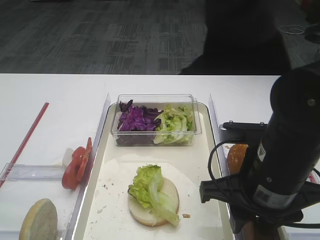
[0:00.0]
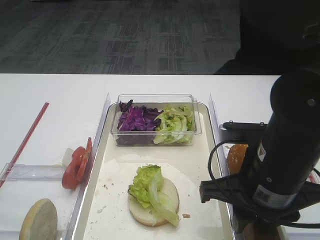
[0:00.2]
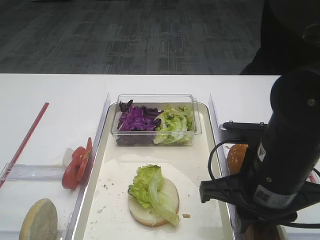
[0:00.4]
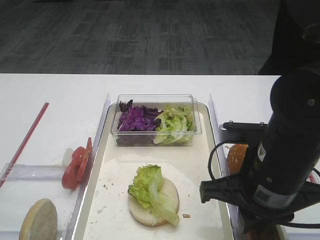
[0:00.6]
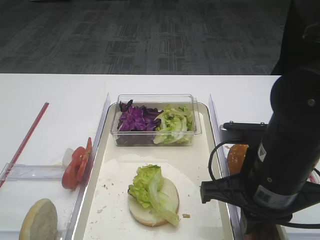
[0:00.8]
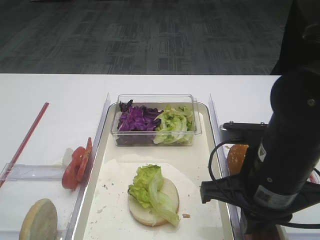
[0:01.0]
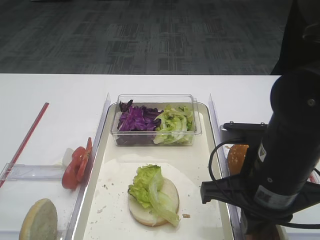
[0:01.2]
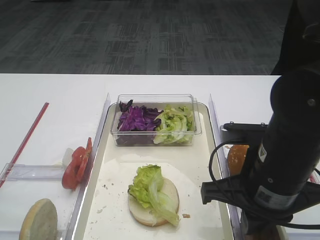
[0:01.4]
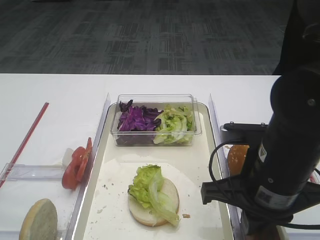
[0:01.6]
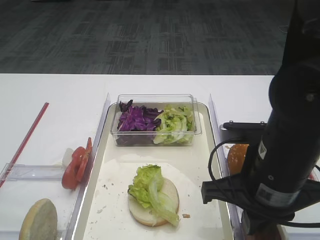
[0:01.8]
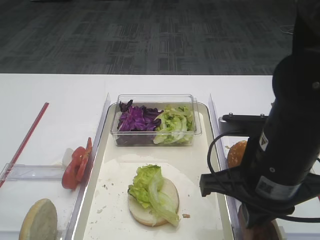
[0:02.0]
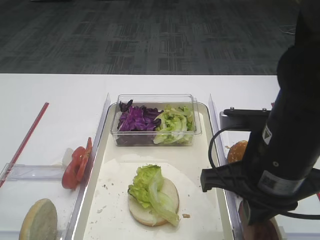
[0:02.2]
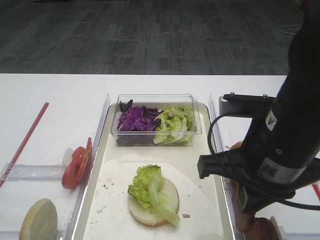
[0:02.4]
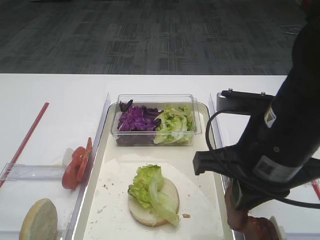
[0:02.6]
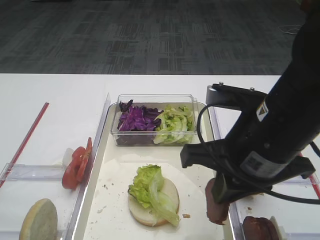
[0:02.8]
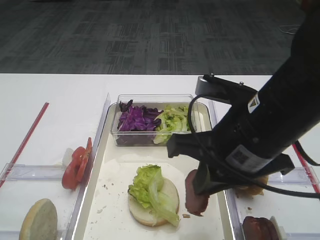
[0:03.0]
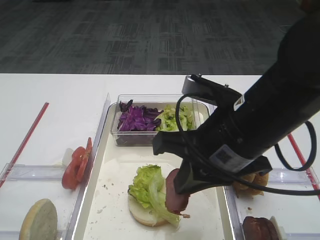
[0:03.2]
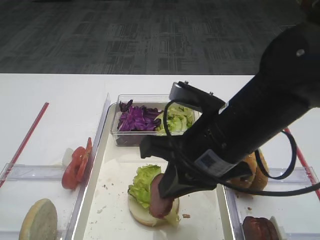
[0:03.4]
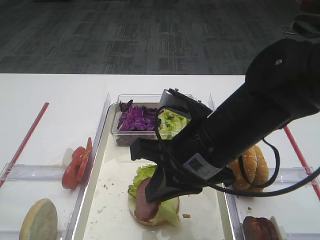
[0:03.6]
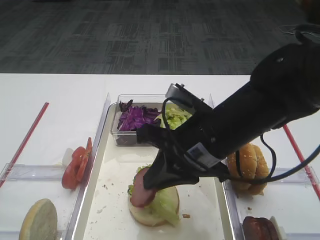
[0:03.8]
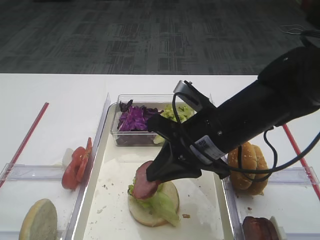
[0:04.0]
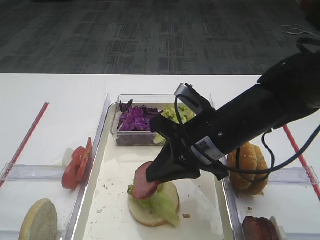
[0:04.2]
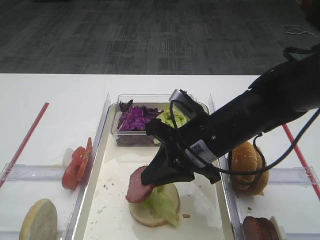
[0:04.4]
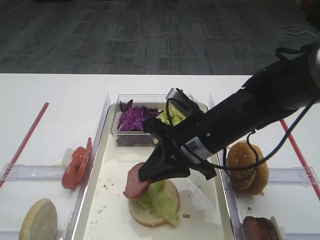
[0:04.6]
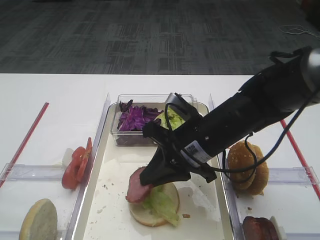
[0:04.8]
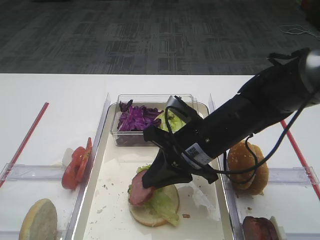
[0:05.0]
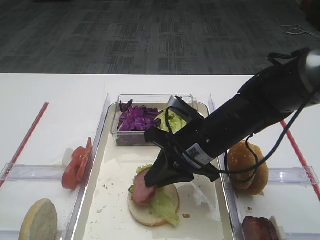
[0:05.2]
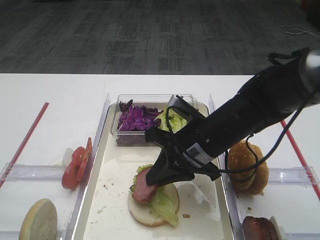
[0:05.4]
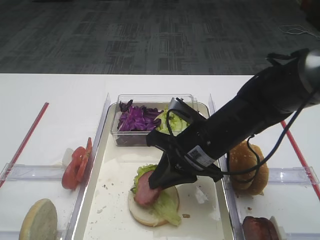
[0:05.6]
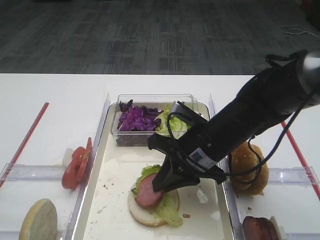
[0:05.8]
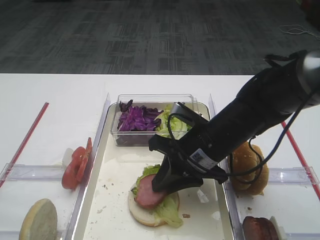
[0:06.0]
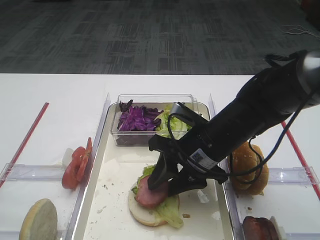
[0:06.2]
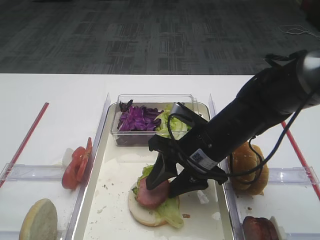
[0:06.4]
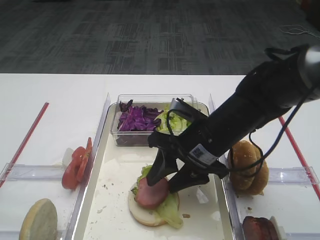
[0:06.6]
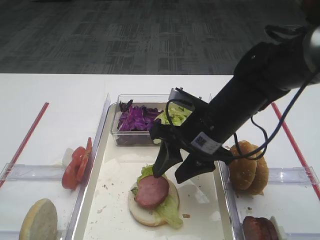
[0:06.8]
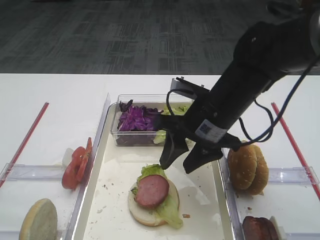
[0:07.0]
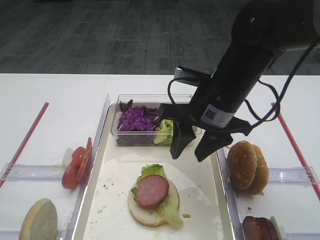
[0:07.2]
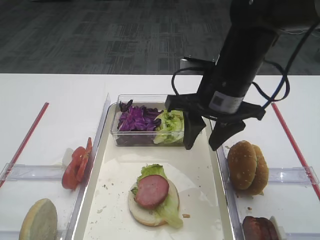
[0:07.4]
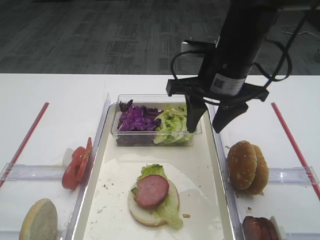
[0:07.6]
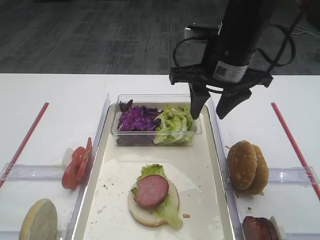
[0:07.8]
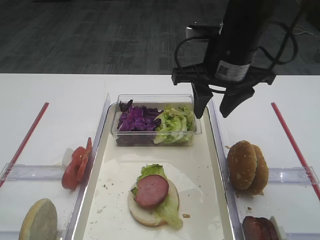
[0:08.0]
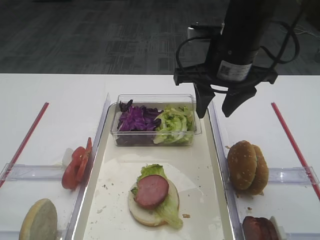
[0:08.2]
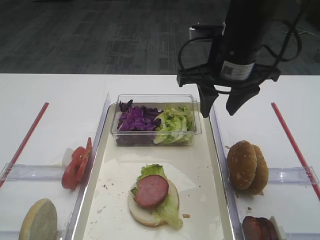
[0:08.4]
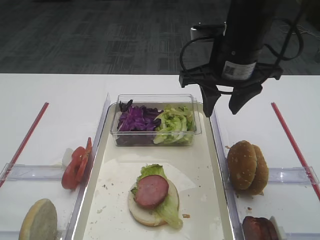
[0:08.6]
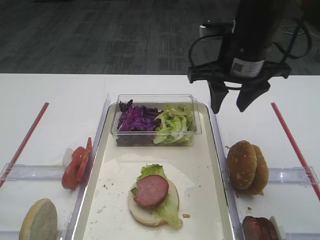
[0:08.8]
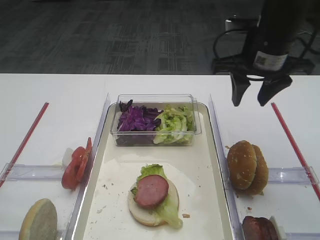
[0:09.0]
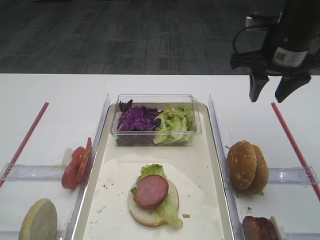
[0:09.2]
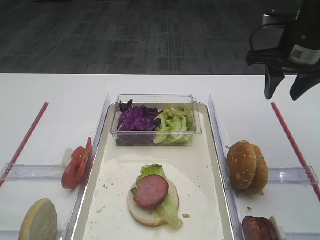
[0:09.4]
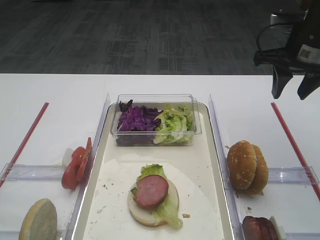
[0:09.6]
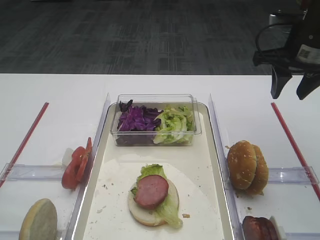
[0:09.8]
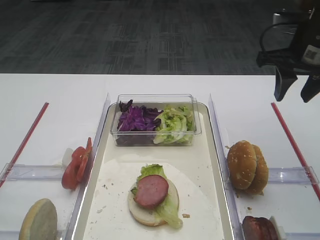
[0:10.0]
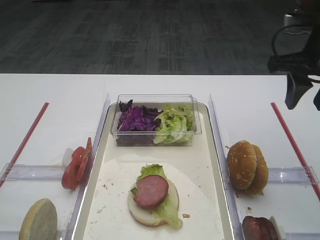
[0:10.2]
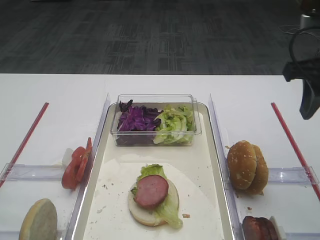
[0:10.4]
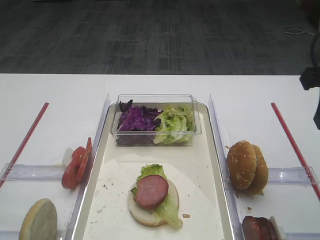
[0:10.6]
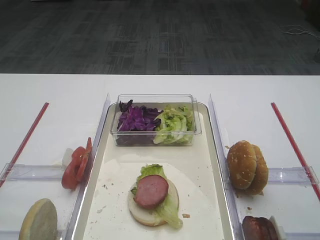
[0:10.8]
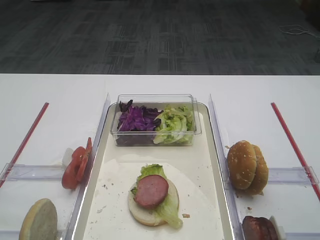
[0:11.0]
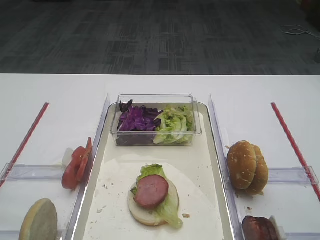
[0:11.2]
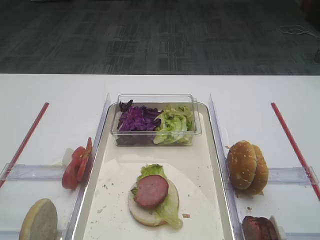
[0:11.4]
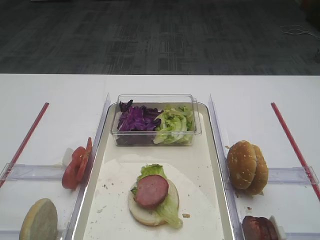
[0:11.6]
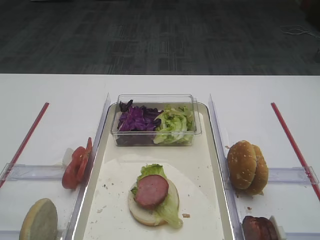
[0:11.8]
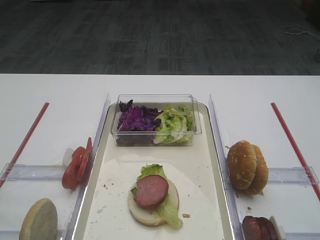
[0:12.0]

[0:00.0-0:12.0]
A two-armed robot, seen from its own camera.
Step, 0:00.0 to 0:02.2: Pick up the cutlet with the right gripper.
Step, 0:02.4 to 0:07.0: Place the cutlet on the lettuce leaf with the right gripper.
0:00.0 to 0:01.6: The right gripper closes.
0:01.6 to 0:03.0: The right gripper moves upward, approximately 5 cm.
0:03.0 to 0:04.4: The right gripper shifts roughly 10 cm downward and forward.
0:04.4 to 0:06.0: The grippers move only a little.
0:06.0 to 0:07.6: The right gripper moves upward, some 10 cm, and opens.
0:07.6 to 0:09.0: The right gripper goes approximately 5 cm to the right.
0:09.0 to 0:10.4: The right gripper heads to the right and backward, covering roughly 10 cm.
0:10.4 to 0:12.0: The right gripper is displaced backward by some 25 cm.

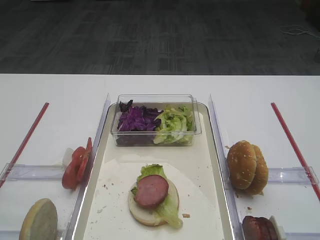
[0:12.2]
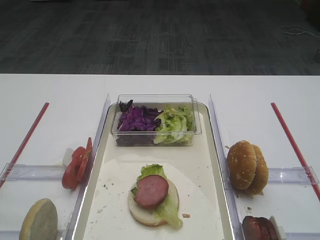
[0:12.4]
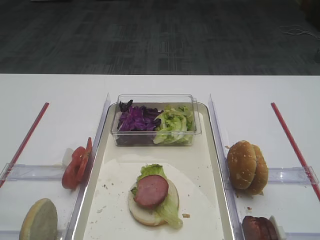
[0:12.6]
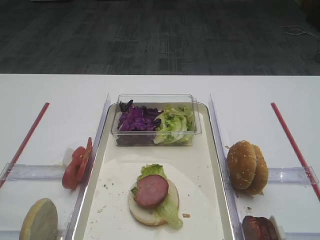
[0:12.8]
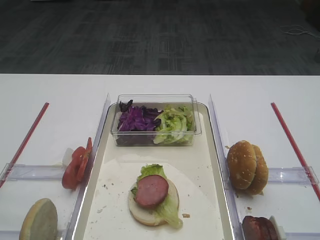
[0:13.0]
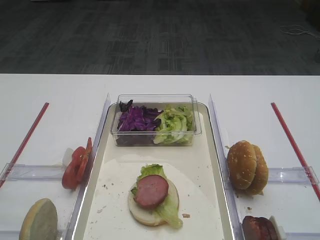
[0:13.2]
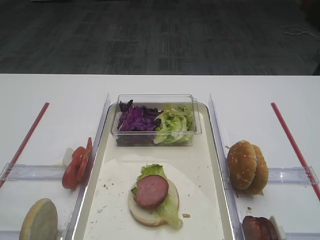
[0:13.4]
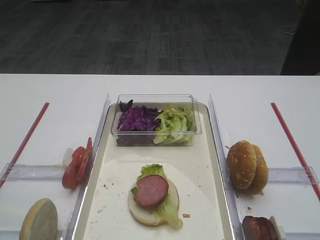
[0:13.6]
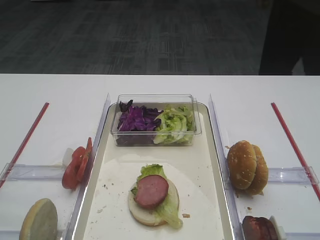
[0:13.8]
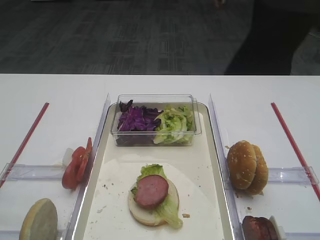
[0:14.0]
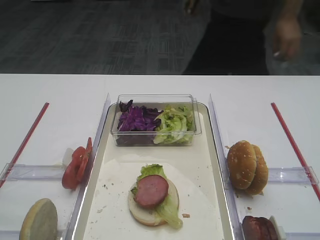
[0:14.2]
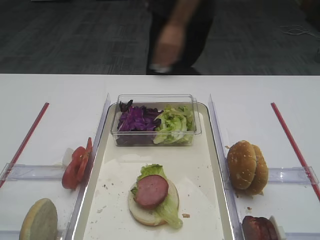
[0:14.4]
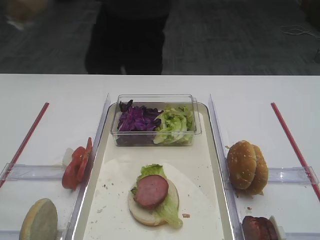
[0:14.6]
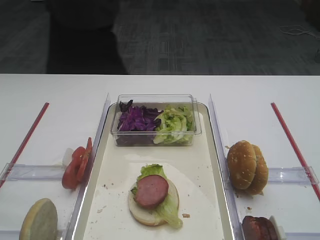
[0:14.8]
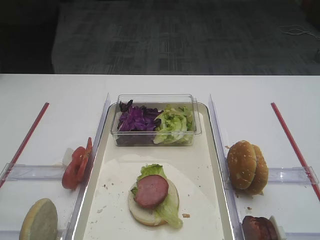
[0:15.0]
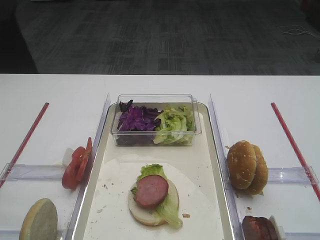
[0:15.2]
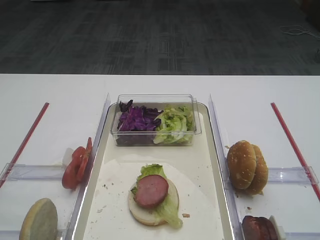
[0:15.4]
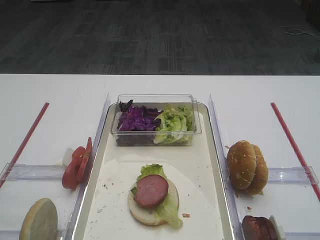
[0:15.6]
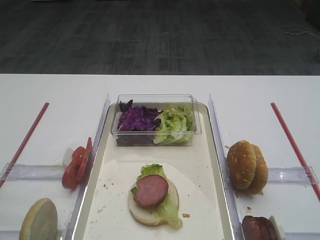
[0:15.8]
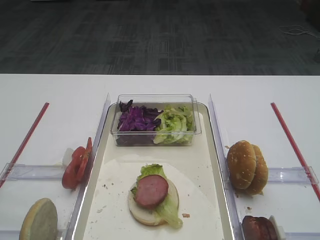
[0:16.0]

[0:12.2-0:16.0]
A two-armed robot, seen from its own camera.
0:13.4 to 0:16.0: Neither gripper changes place.

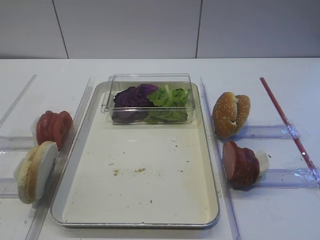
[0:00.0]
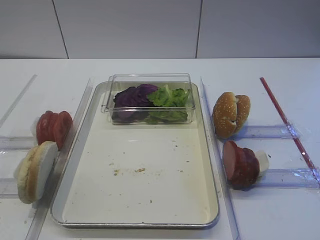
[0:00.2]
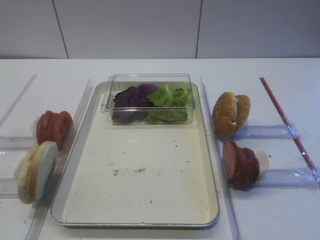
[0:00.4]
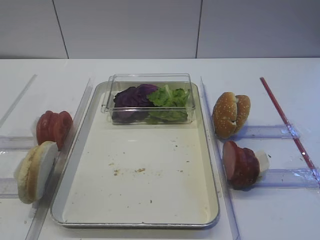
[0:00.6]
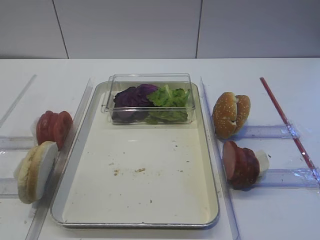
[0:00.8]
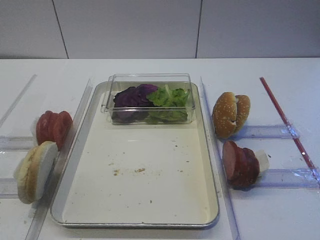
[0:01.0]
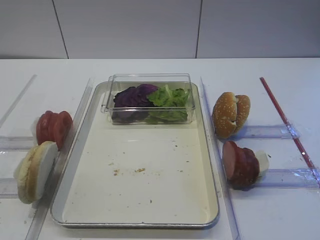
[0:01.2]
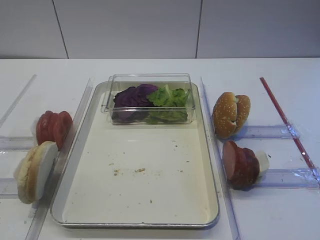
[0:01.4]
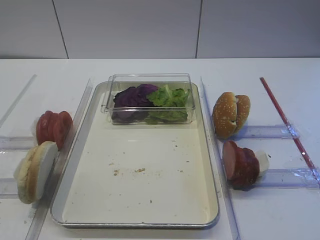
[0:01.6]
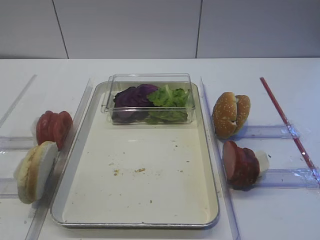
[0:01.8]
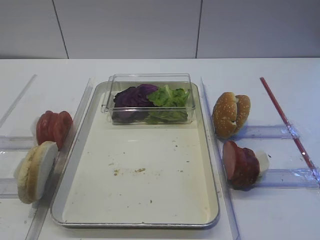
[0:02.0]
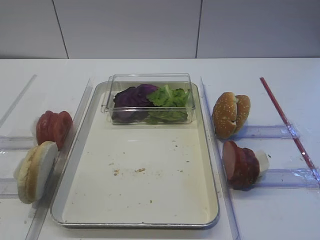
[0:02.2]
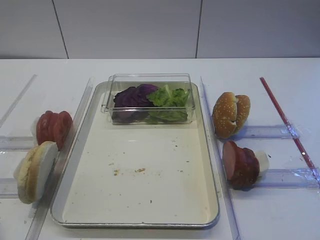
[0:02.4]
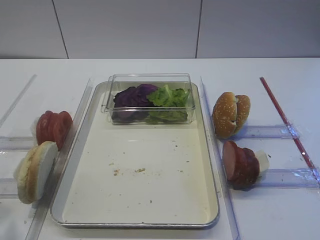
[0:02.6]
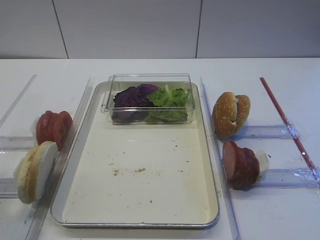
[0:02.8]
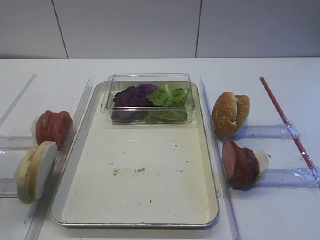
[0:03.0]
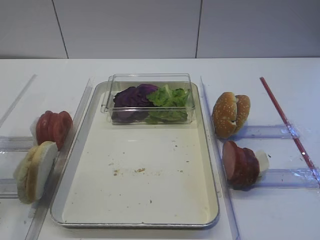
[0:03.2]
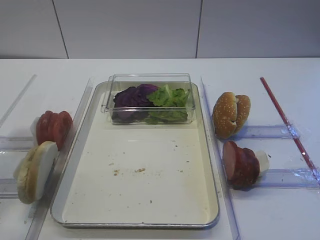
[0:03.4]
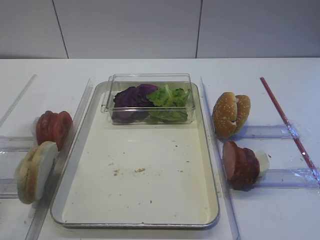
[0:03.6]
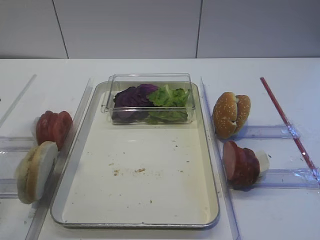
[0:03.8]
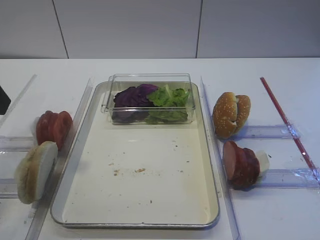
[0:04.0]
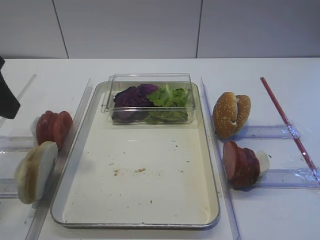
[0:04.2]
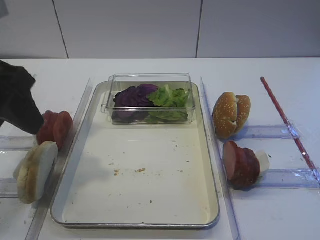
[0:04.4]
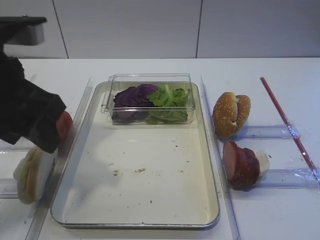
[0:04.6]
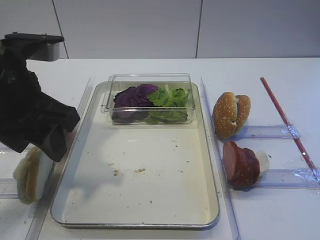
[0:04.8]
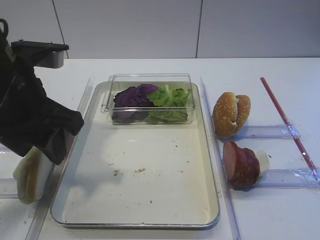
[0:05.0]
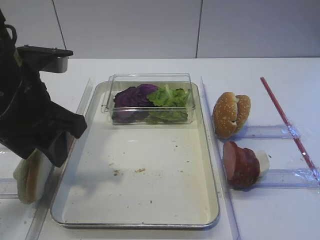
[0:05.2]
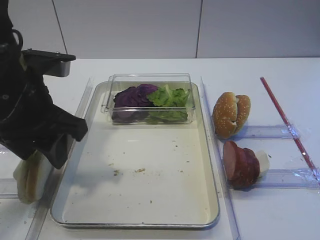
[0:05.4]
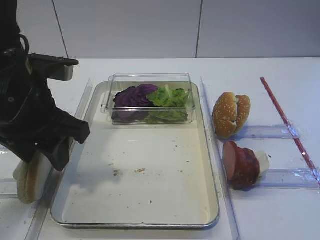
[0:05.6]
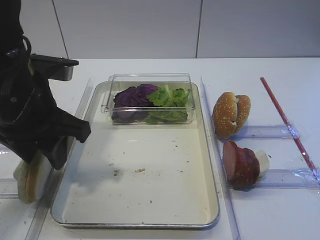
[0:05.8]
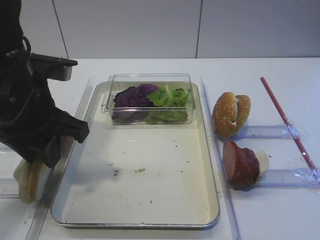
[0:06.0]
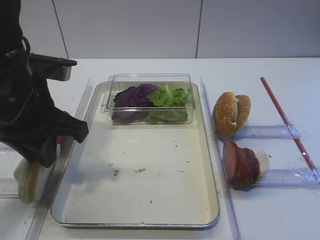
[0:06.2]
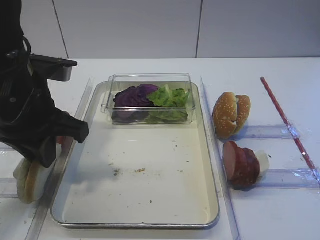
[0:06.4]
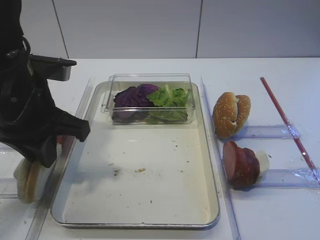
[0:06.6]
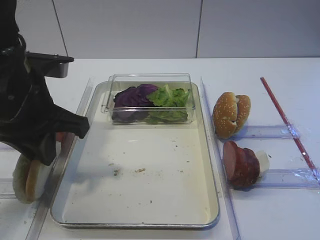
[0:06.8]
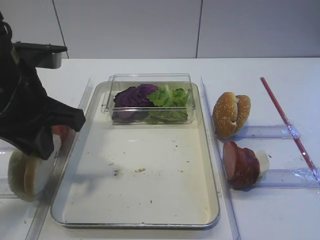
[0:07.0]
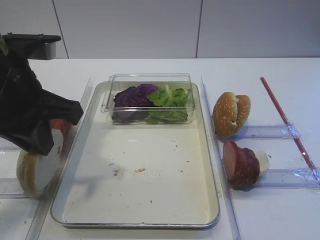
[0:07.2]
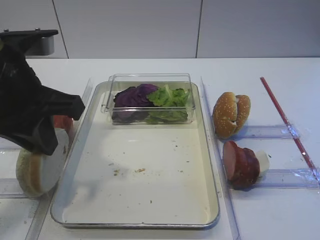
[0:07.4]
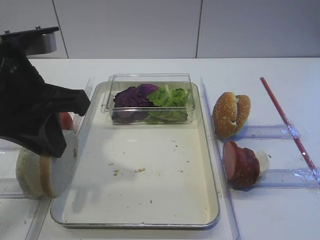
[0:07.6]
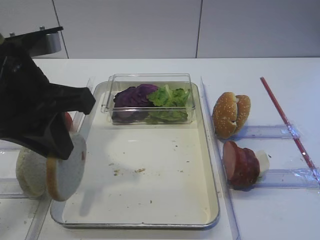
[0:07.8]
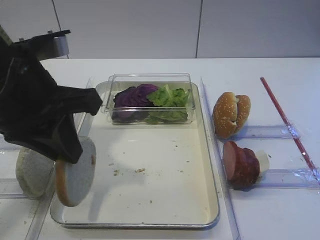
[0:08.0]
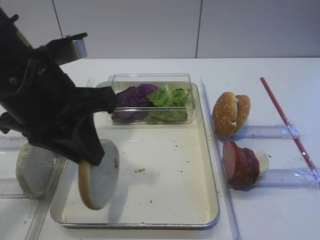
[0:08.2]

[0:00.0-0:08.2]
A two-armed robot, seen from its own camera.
Step, 0:00.0 to 0:07.4: Pick up the bread slice with the left gripper.
0:01.6 to 0:03.2: The left gripper travels forward and upward by approximately 15 cm.
0:03.2 to 0:05.0: The left gripper is displaced to the right, forward and downward by some 15 cm.
0:05.0 to 0:06.6: The left gripper closes.
0:06.6 to 0:08.2: The left gripper ends up about 5 cm from where it was.
